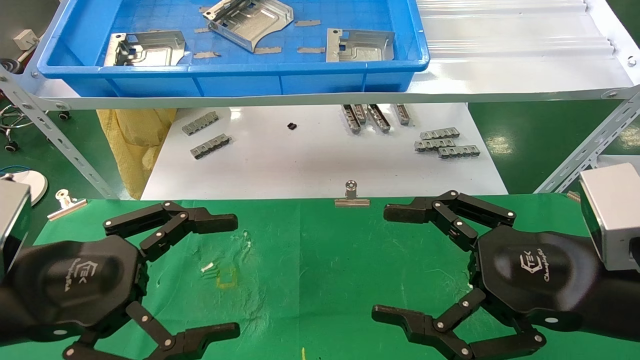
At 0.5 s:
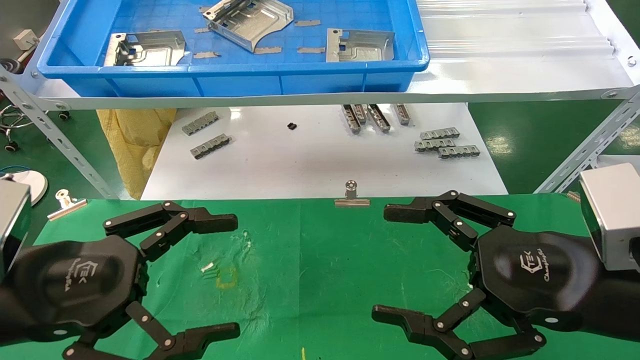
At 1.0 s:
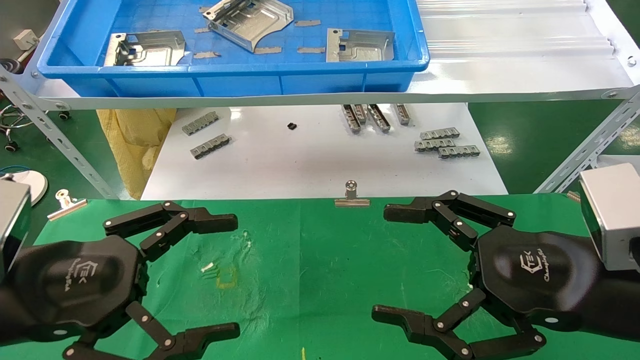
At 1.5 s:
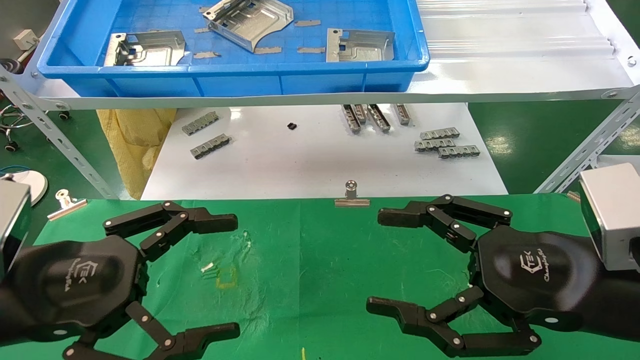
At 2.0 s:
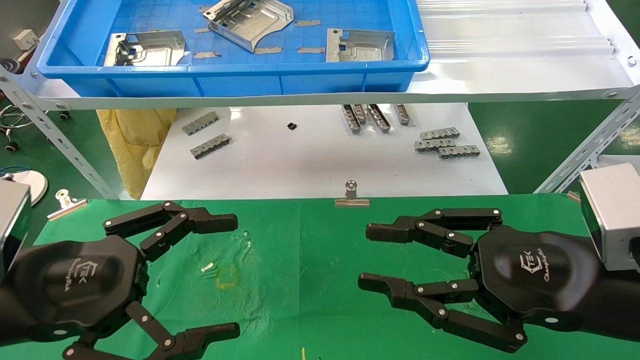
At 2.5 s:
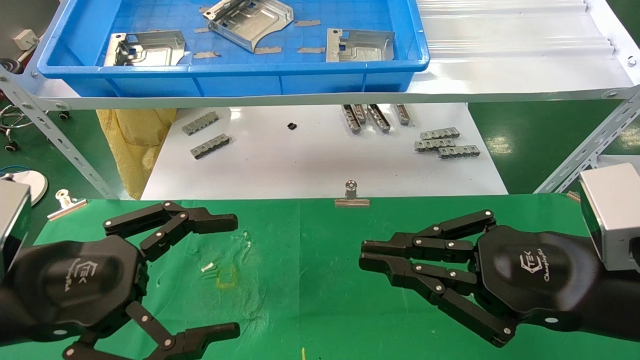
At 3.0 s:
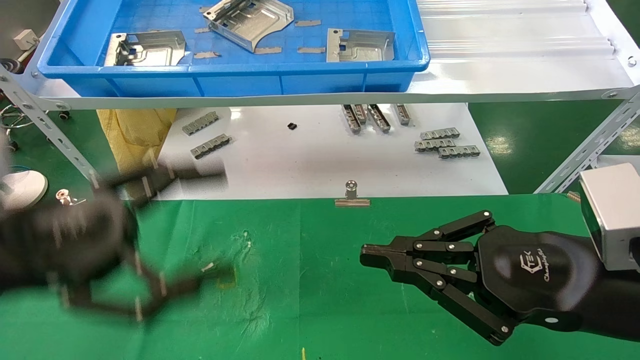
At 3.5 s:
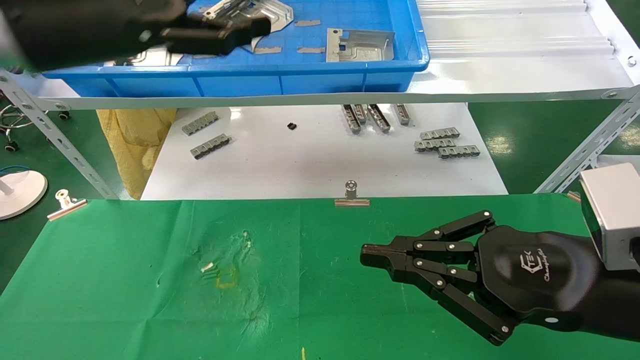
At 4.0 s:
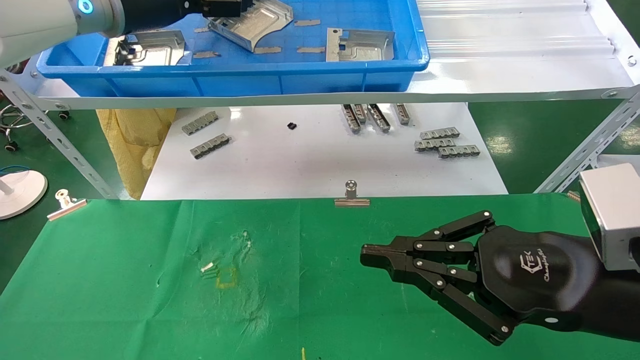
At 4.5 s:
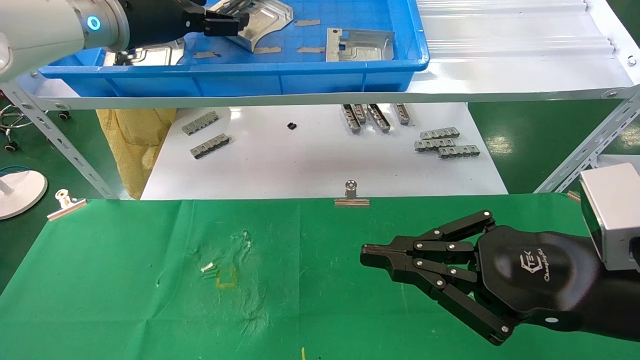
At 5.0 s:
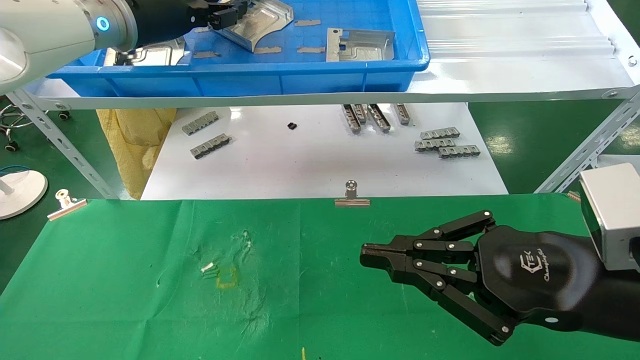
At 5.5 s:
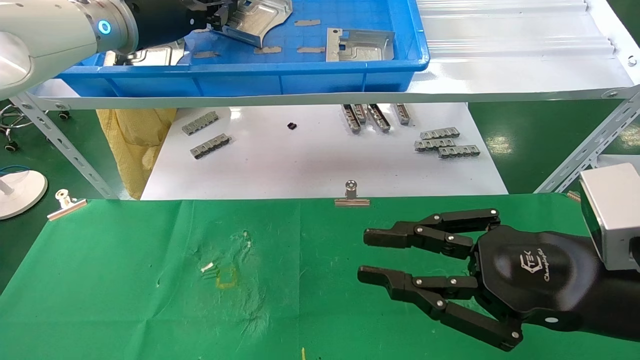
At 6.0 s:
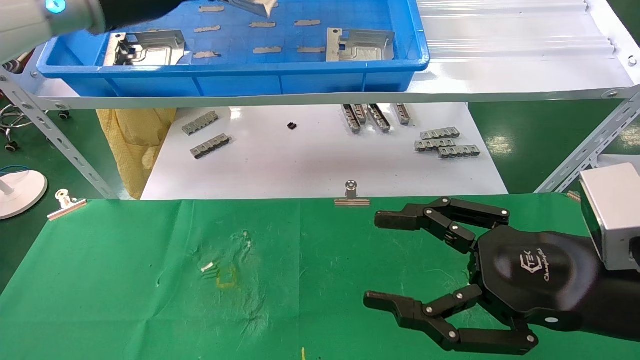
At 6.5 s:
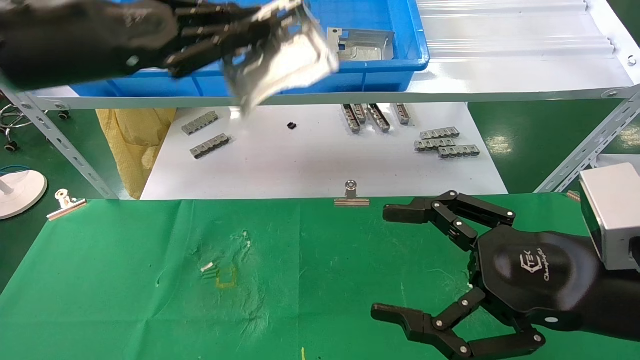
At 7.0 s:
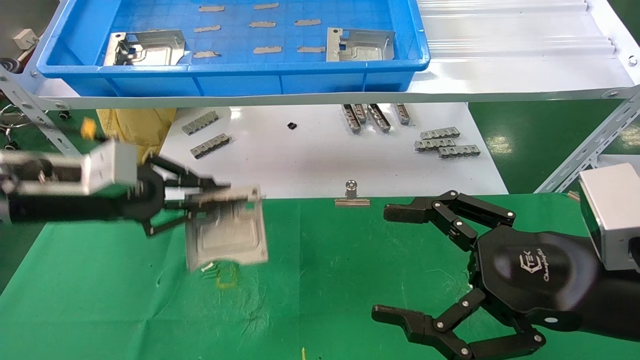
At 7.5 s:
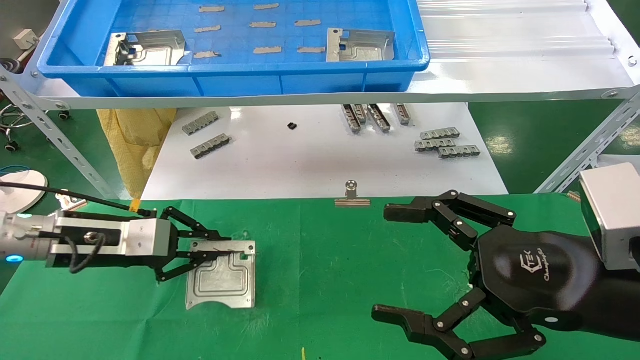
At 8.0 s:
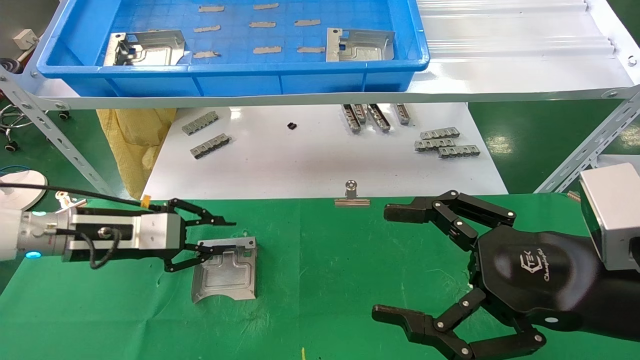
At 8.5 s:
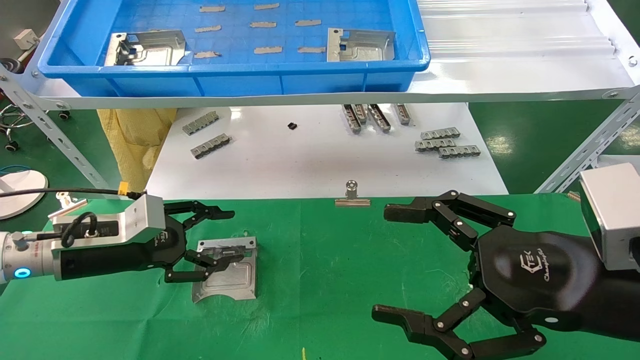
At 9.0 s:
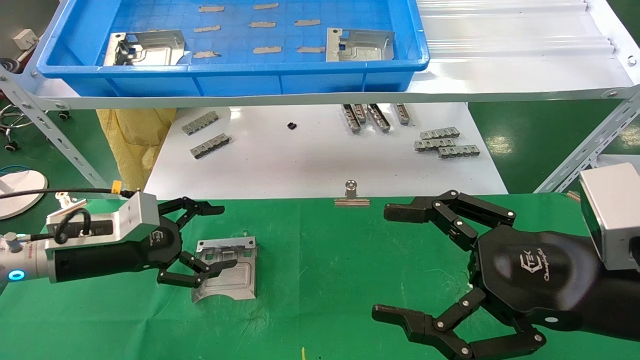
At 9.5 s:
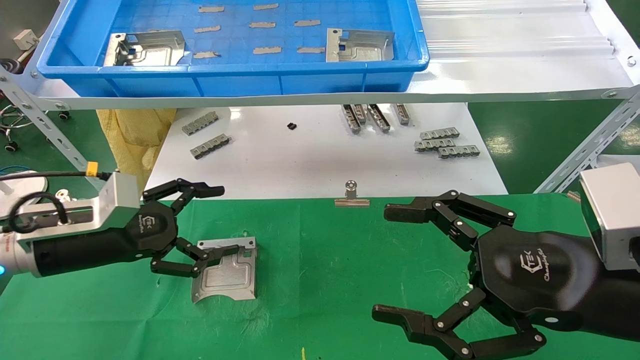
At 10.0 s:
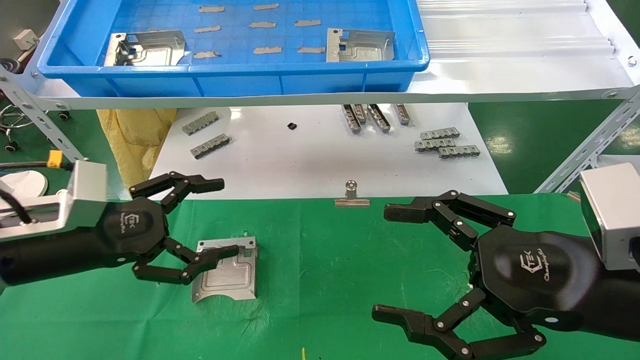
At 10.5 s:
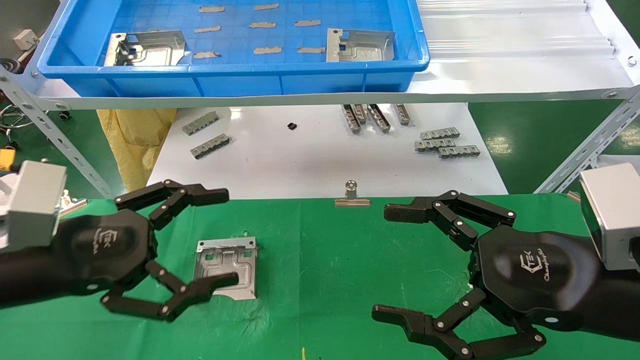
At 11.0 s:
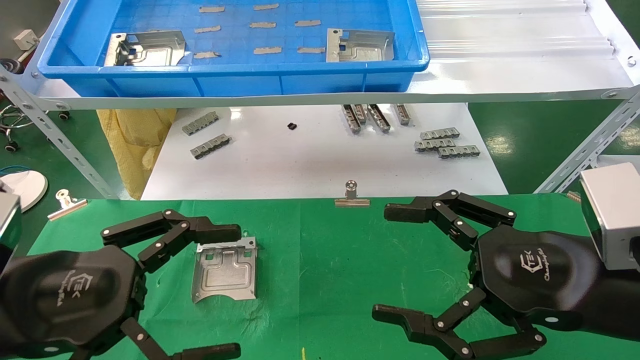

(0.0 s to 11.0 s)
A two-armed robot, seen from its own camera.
Task of the whole recording: use the mechanical arm to pick up the parts and place them on the table.
Step, 3.5 s - 5.5 s: Pick up the hard drive bracket from the feeding area.
Step, 6.0 s - 7.5 s: Place the hard drive bracket into the box.
0.0 s - 2.0 s: The right gripper closes its fingers.
2.0 s - 3.5 s: The left gripper travels upward and forward by approximately 25 cm. The right gripper closes.
3.5 s - 5.5 s: The left gripper goes approximately 10 cm forward, and closes up.
5.5 s - 7.5 s: The right gripper opens. Meanwhile the left gripper goes approximately 25 cm downward.
7.5 s - 9.0 s: The left gripper opens.
9.0 s - 11.0 s: The left gripper travels backward by about 15 cm.

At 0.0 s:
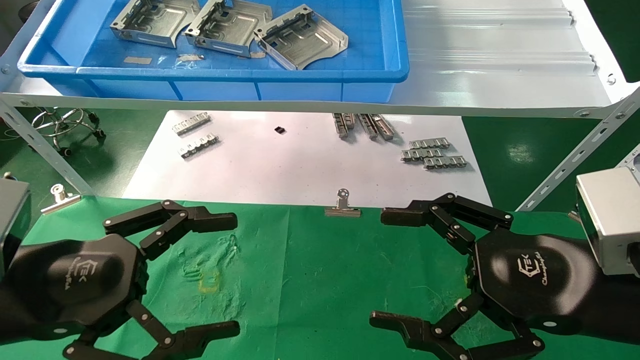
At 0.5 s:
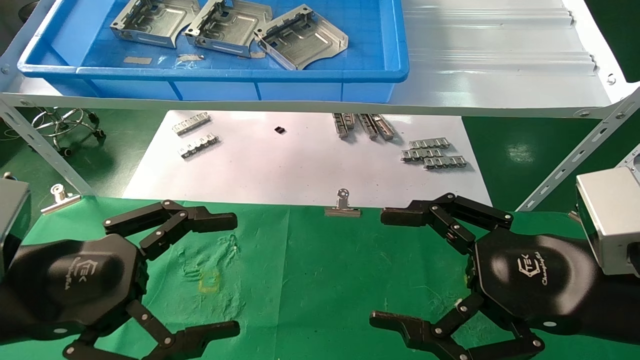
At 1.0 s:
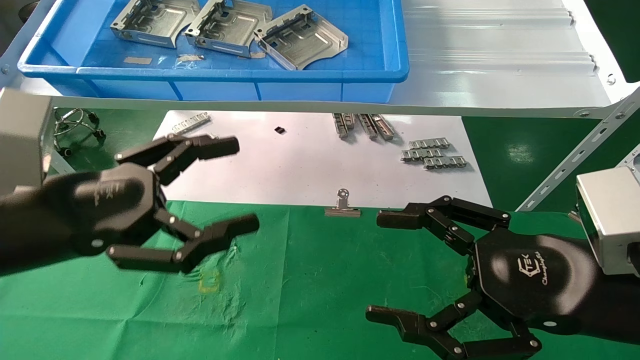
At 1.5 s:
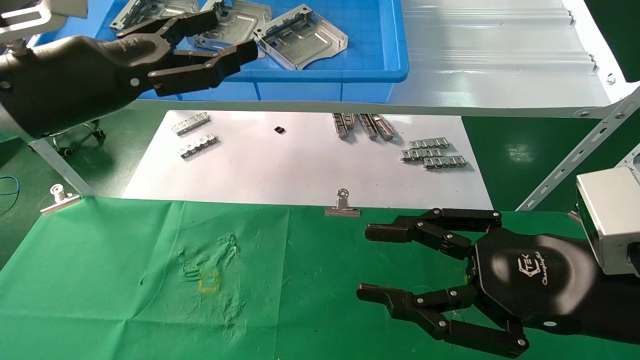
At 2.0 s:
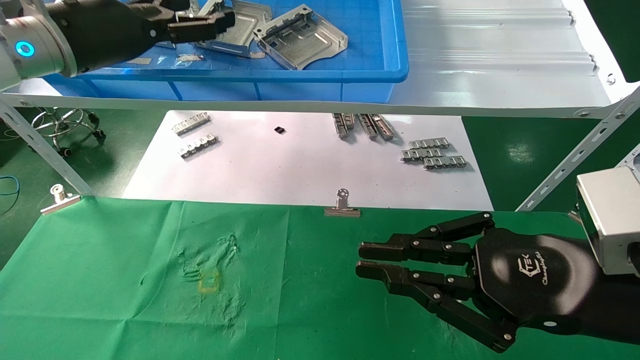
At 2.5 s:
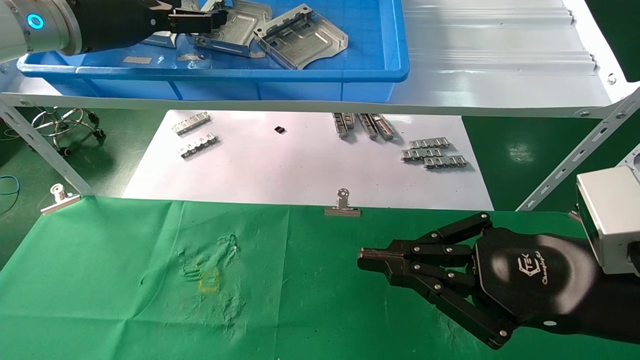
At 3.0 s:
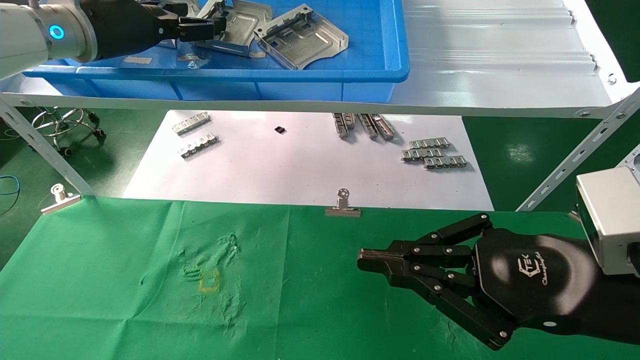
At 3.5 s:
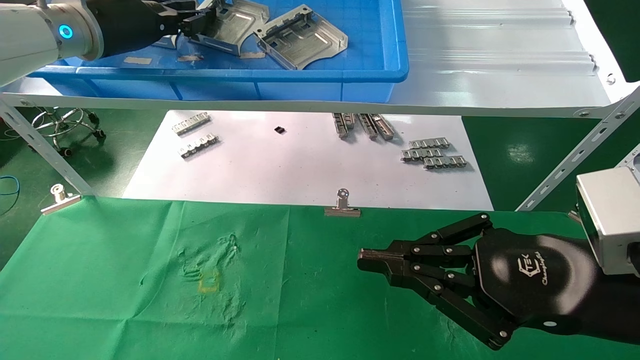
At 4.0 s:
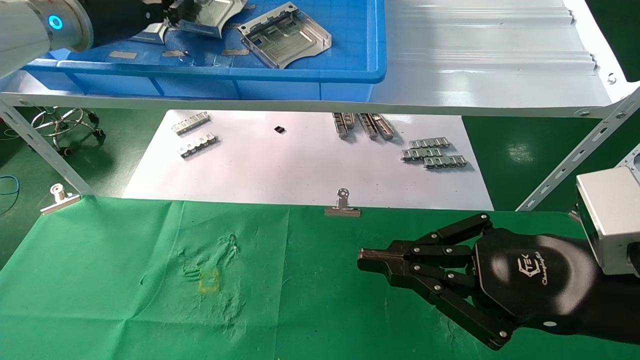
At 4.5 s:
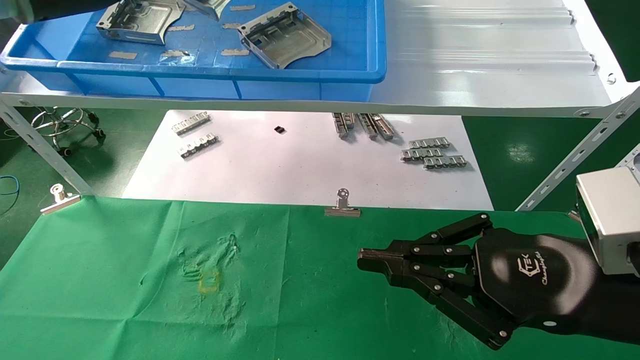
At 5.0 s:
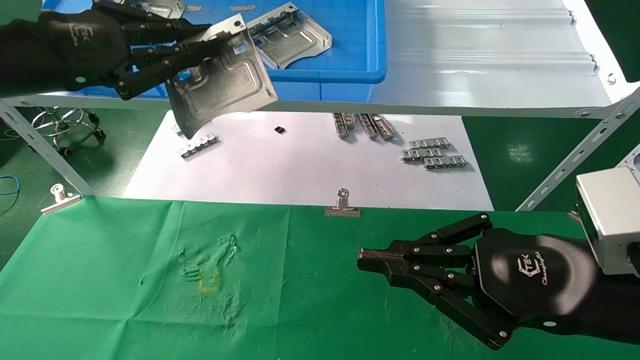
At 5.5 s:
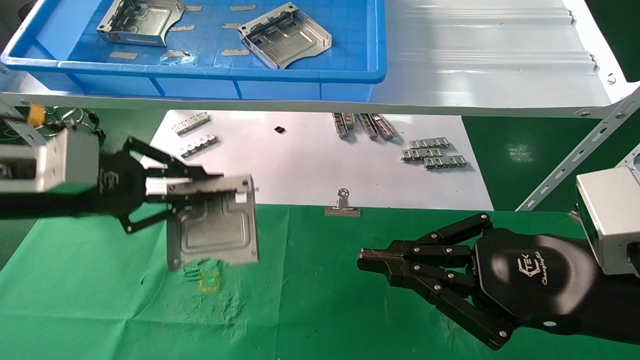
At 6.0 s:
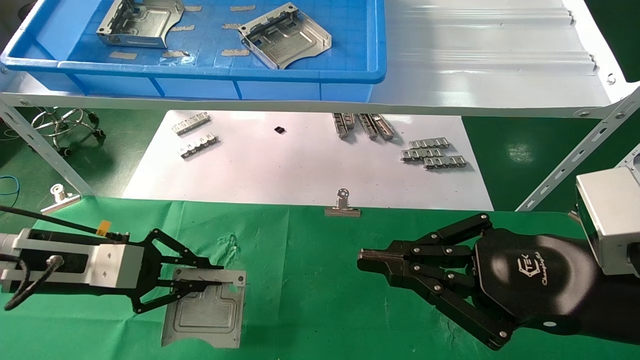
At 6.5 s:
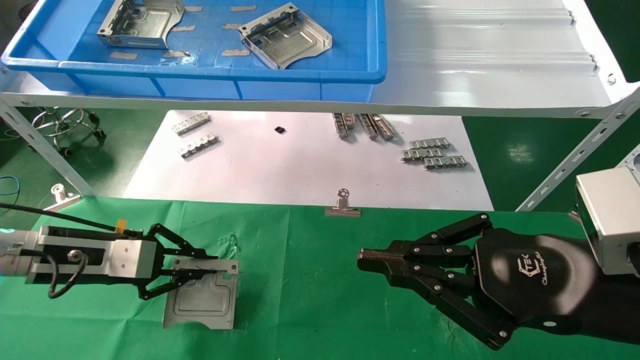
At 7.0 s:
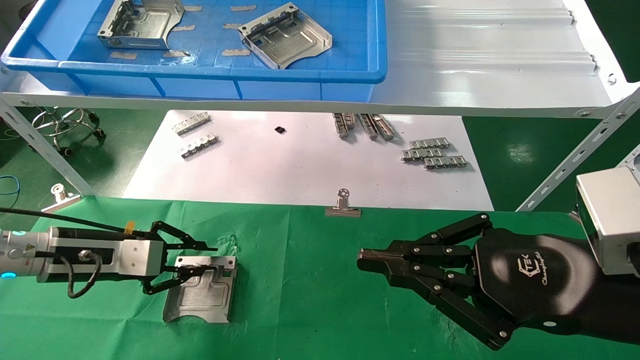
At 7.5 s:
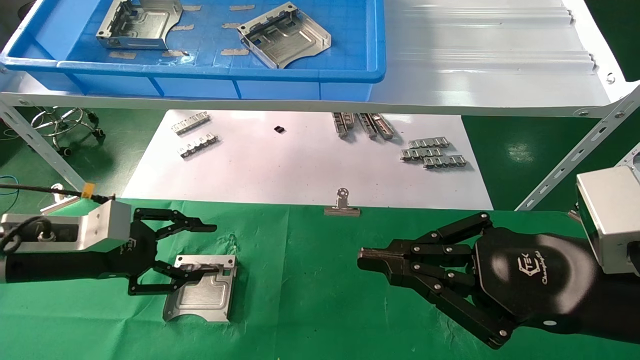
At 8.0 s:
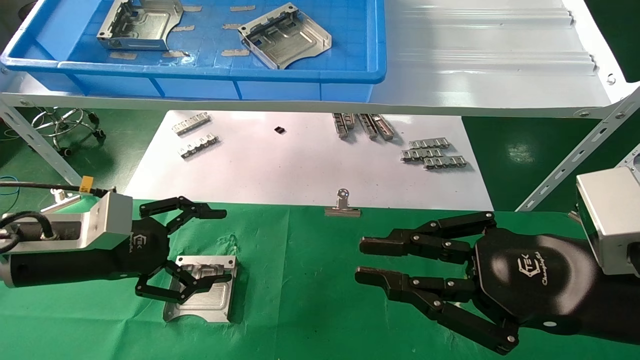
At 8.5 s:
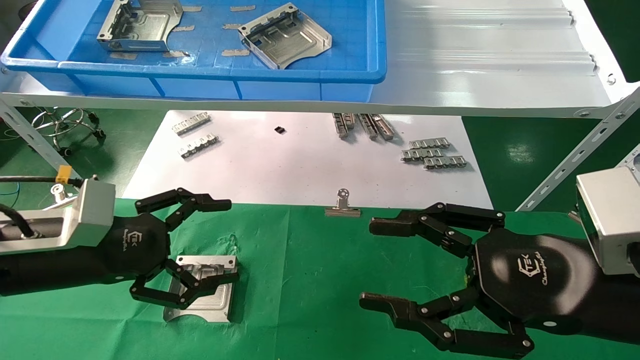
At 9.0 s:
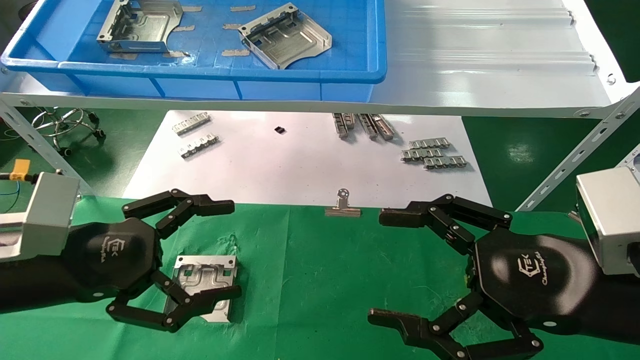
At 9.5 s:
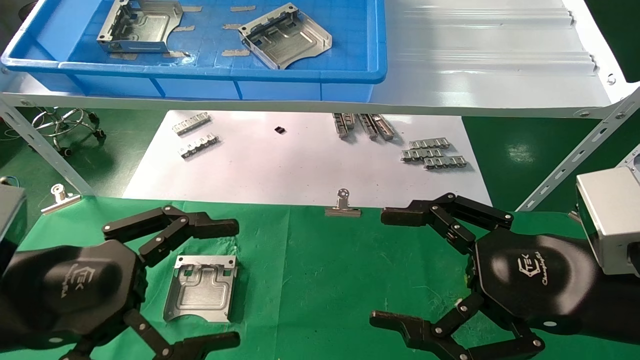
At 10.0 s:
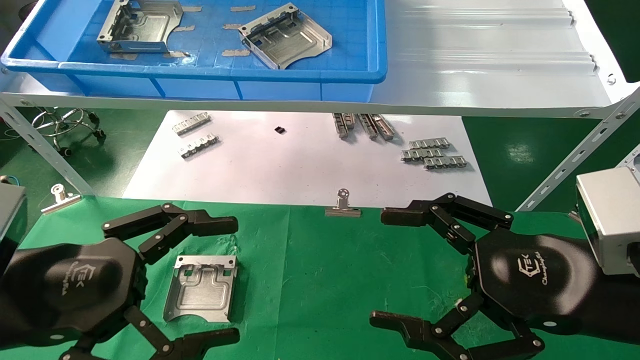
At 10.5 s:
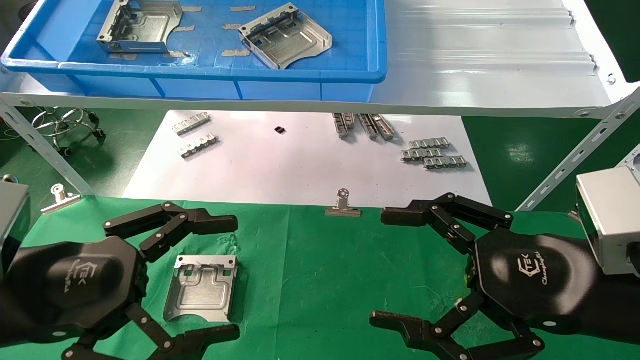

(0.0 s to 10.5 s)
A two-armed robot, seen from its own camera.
Task of the whole recording: use the mechanical arm to pick up the parts and place them on the table.
Step, 1.0 s - 3.5 s: Pick up the hard drive bracket from the feeding area.
Step, 4.0 s - 6.5 s: Place the hard drive bracket into the box.
0.0 s - 2.0 s: The right gripper closes; the left gripper heads forward and upward, covering approximately 25 cm.
2.0 s - 4.0 s: The left gripper moves about 5 cm, and closes its fingers.
4.0 s - 6.5 s: The left gripper moves downward, about 30 cm.
6.5 s - 8.5 s: The left gripper heads backward, covering approximately 5 cm, and opens its fingers. Meanwhile the right gripper opens.
8.5 s - 10.5 s: The right gripper opens its fingers; the left gripper moves backward, about 10 cm.
